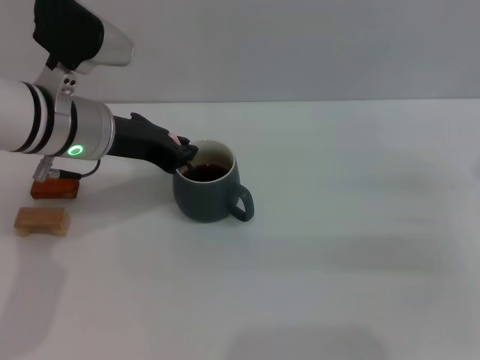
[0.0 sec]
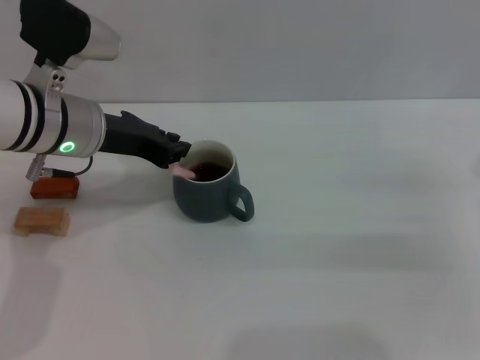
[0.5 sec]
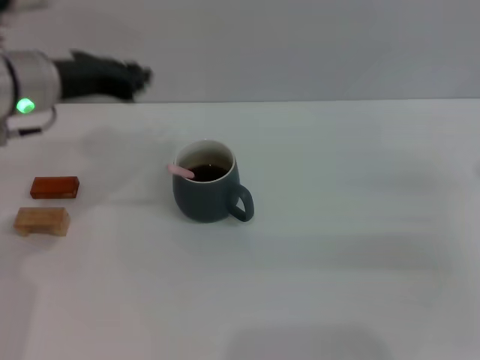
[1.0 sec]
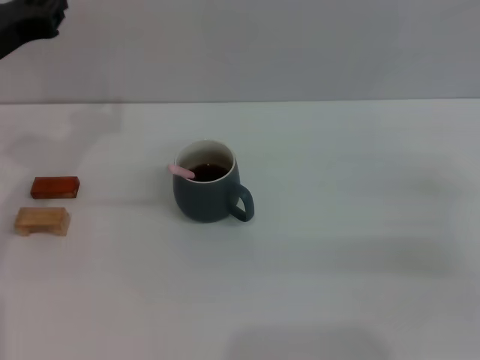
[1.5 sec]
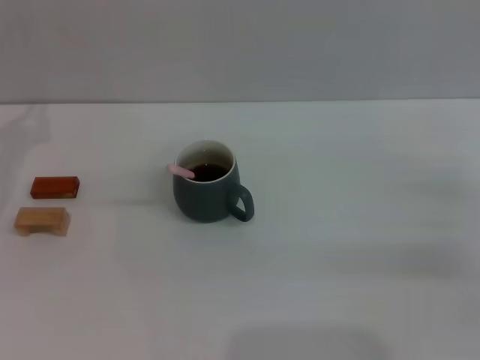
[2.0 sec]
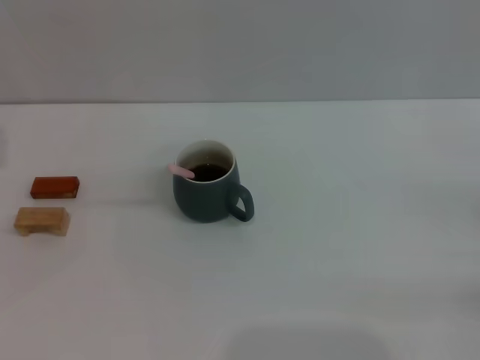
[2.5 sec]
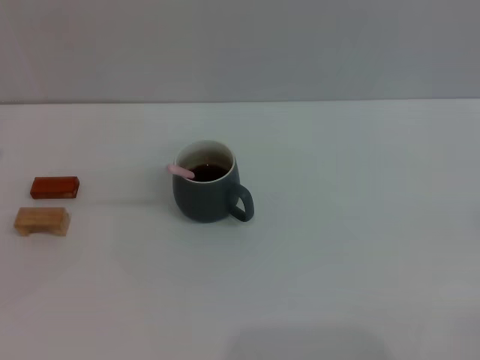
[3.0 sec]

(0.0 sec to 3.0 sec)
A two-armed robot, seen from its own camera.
Task of the whole recording: Move the grey cup to the center, lift the pink spoon, stir it three times in the cup, and put the spoon into the cup.
0.0 sec - 1.5 sec: The left gripper moves to the left, about 10 cm.
1.5 sec - 3.0 sec: The left gripper shifts approximately 15 cm to the left, downward and backward, and opens its fingers.

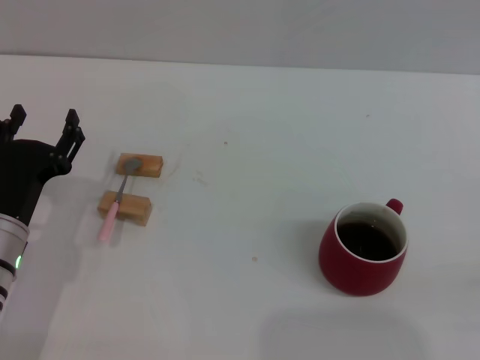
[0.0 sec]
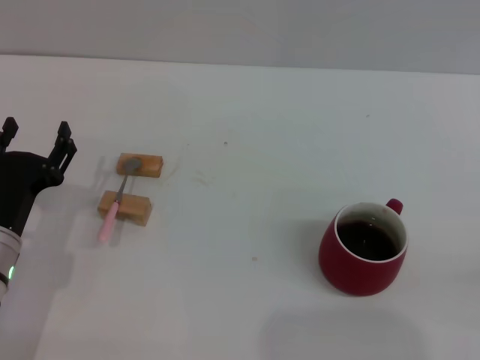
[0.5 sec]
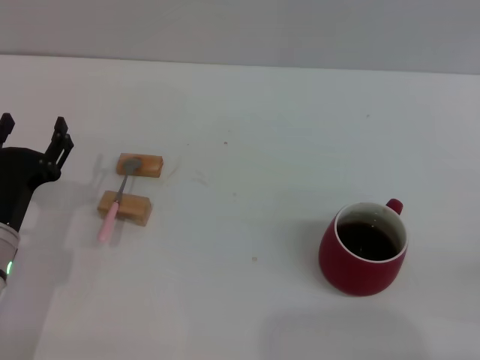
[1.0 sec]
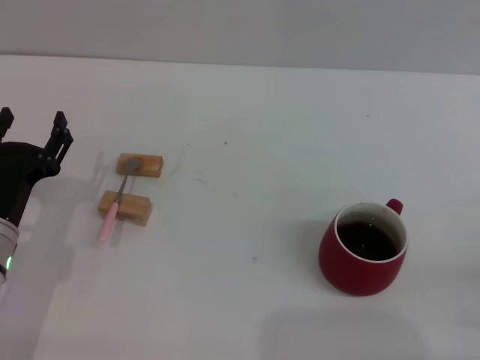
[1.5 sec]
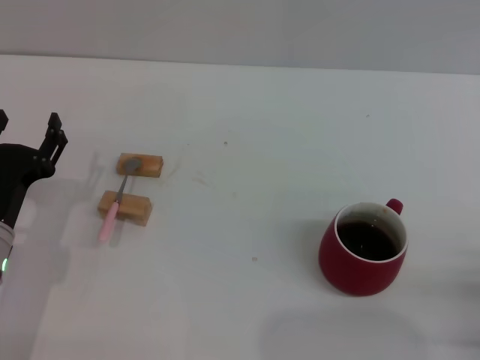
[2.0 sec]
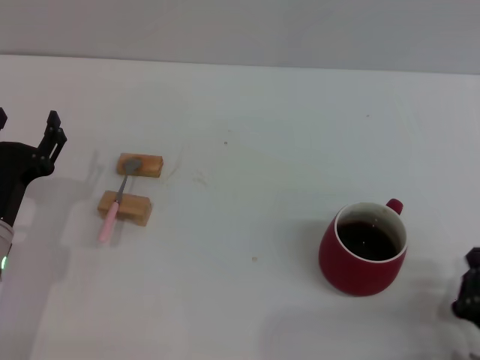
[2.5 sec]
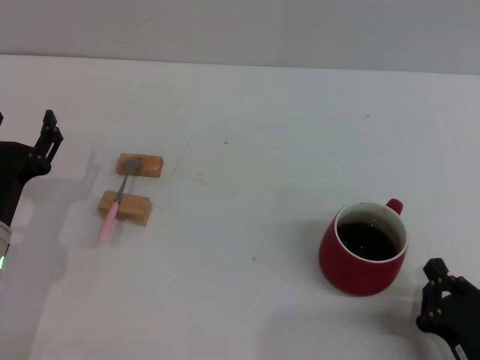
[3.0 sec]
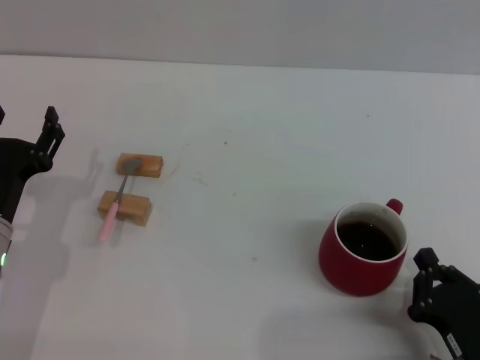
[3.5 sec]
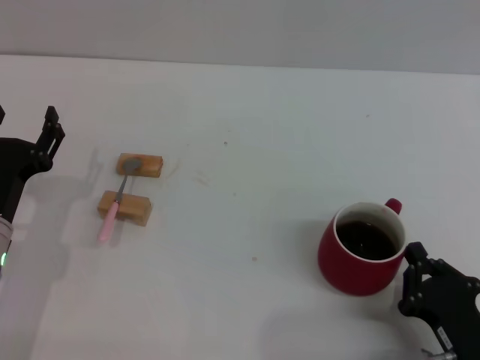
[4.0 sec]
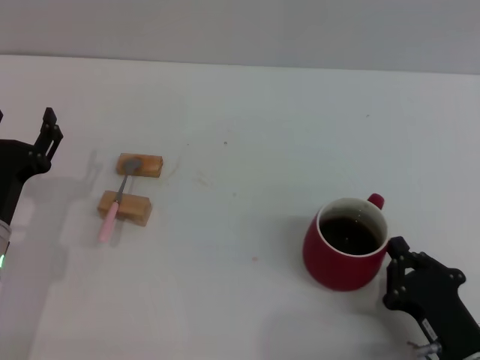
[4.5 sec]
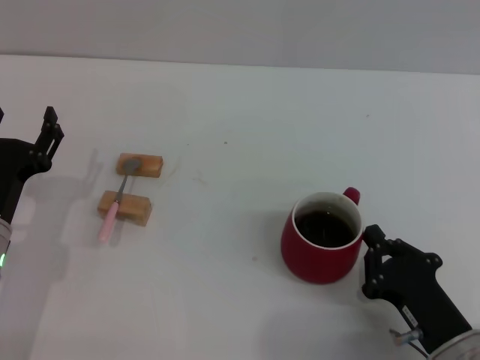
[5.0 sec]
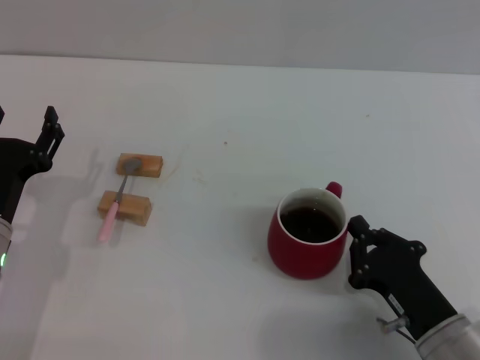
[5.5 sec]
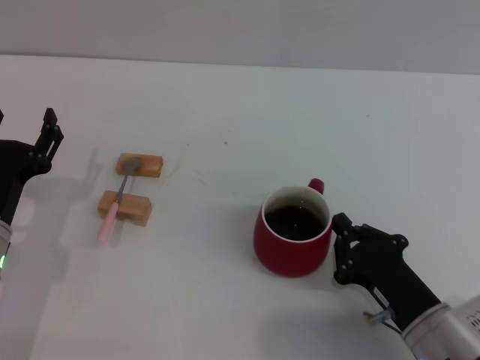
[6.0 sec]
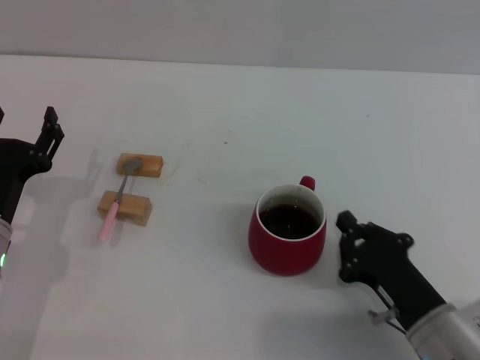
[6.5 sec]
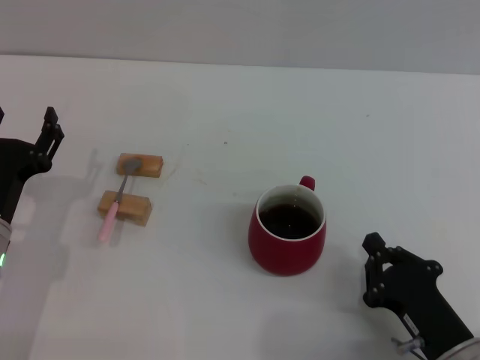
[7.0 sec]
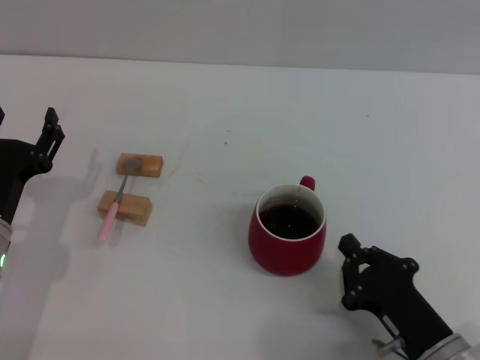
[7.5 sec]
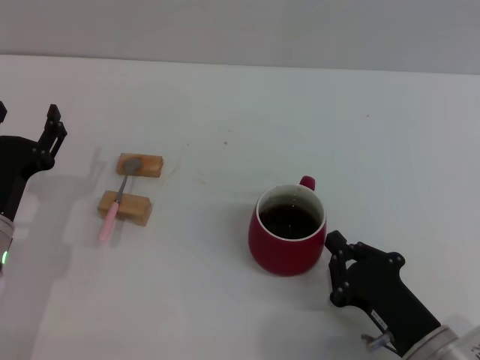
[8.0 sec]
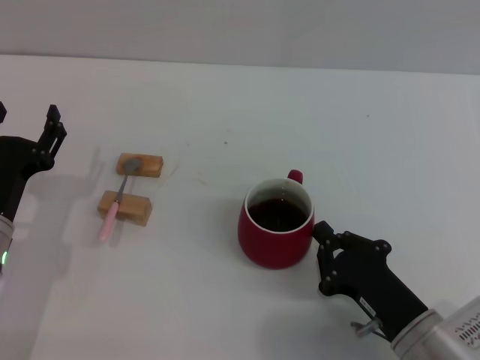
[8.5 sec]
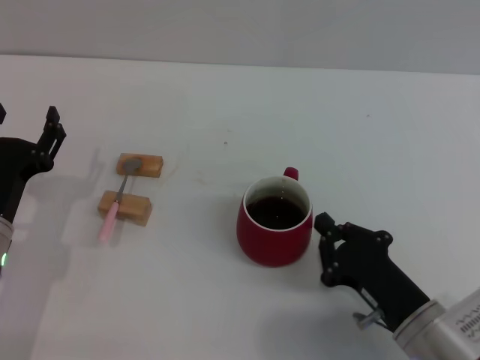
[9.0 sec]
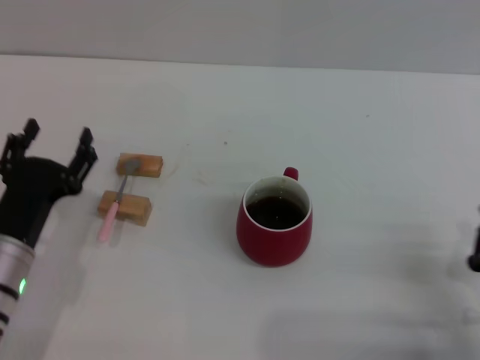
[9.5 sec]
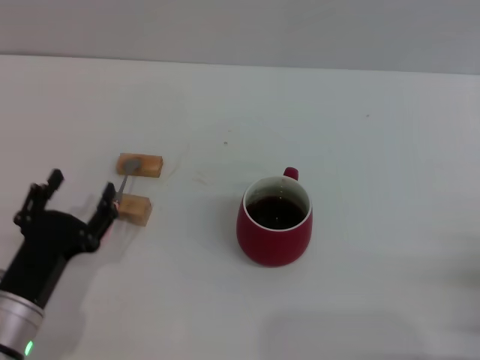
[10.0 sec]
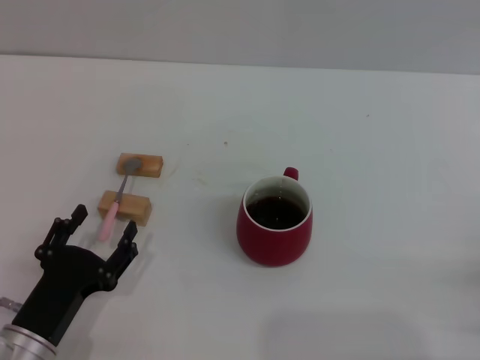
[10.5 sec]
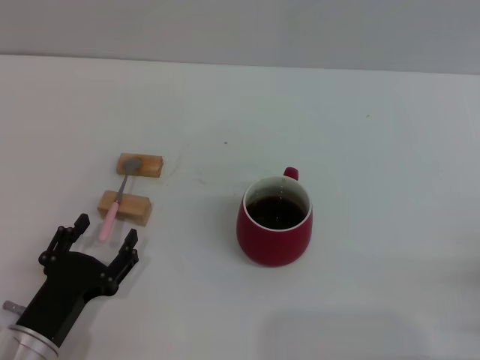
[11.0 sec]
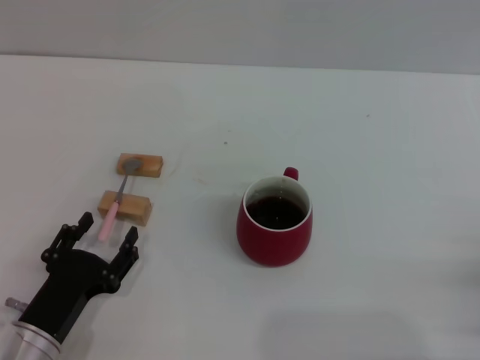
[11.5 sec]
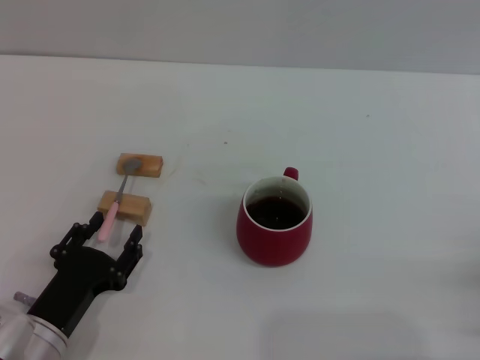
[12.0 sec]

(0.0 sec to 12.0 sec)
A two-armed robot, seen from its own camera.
Task of the whole recording: Move the red cup to the center, lift the pink spoon, stir it three times in the cup, and put the spoon into the cup.
Step, 0.0 sec - 9.5 sec: Move the cup with coffee to the center of view with the right gripper.
2.0 sec - 4.0 sec: The right gripper travels to the left by some 5 cm.
4.0 sec - 6.0 sec: The right gripper travels forward by some 5 cm.
6.0 sec - 8.0 sec: The grippers move only a little.
8.0 sec - 10.0 sec: The left gripper is displaced backward by some 5 cm, while the right gripper heads to the right, covering approximately 10 cm.
10.0 sec - 12.0 sec: The grippers make only small movements.

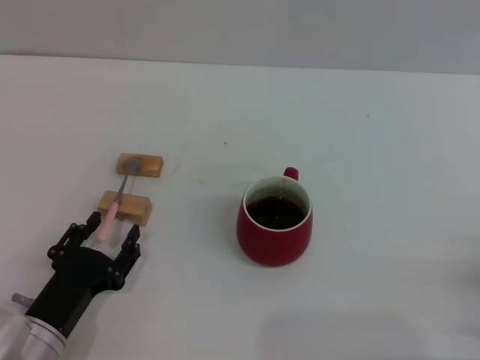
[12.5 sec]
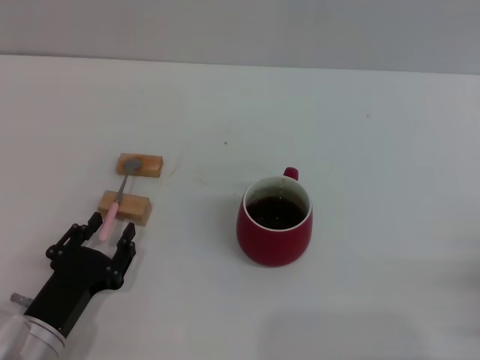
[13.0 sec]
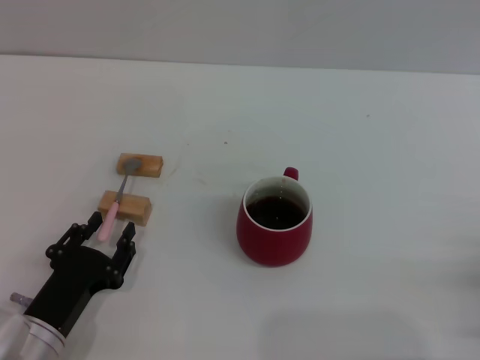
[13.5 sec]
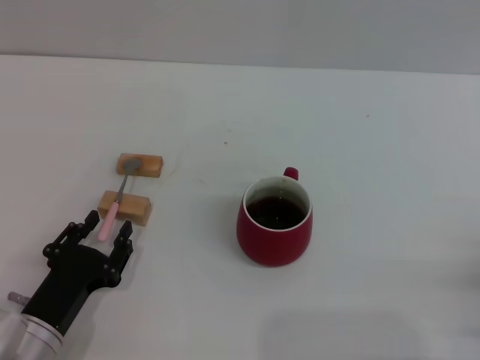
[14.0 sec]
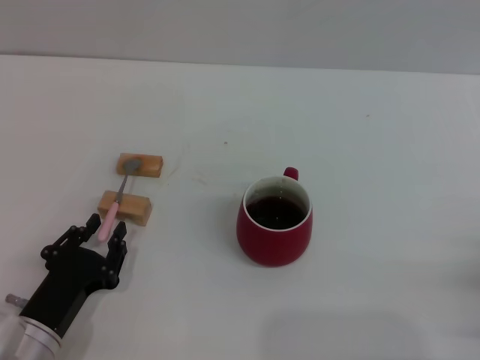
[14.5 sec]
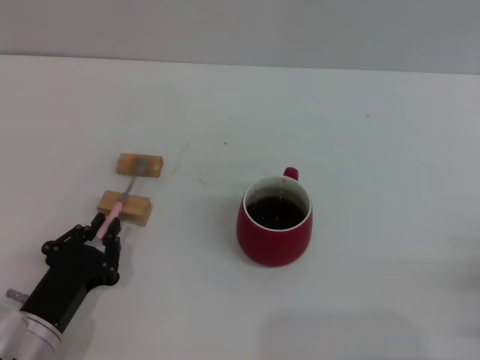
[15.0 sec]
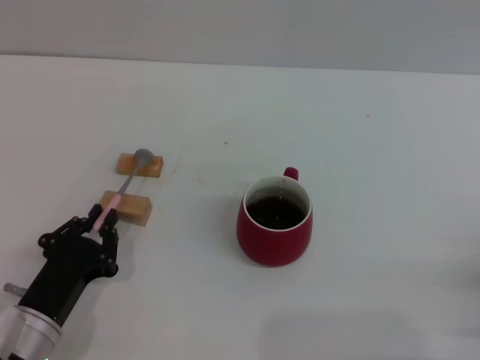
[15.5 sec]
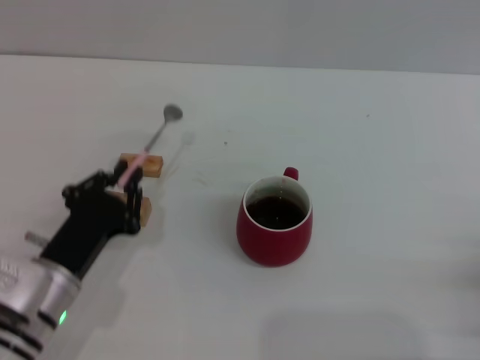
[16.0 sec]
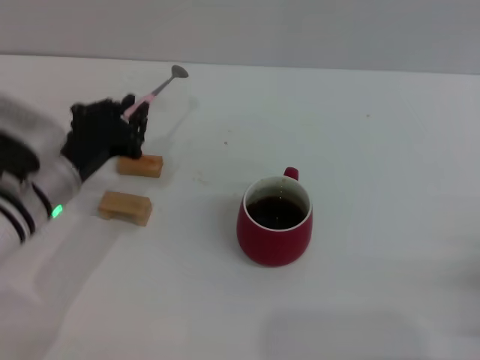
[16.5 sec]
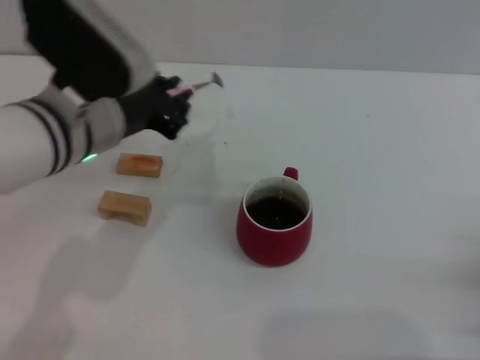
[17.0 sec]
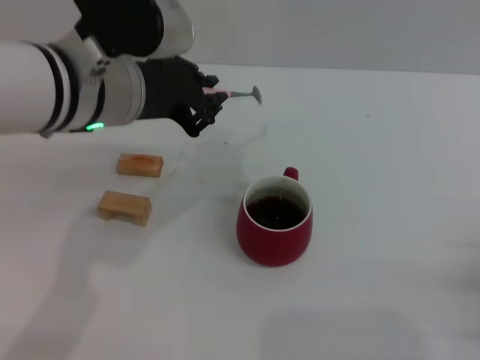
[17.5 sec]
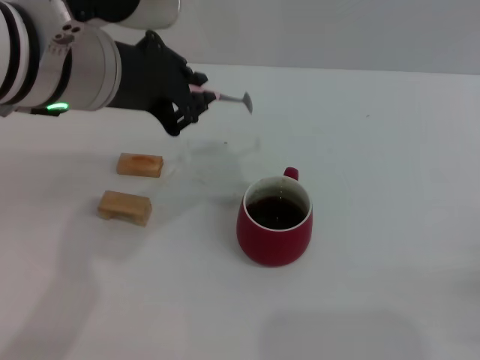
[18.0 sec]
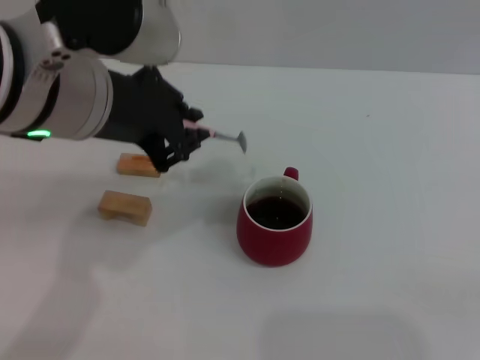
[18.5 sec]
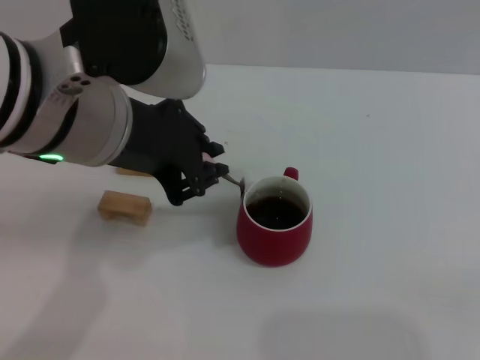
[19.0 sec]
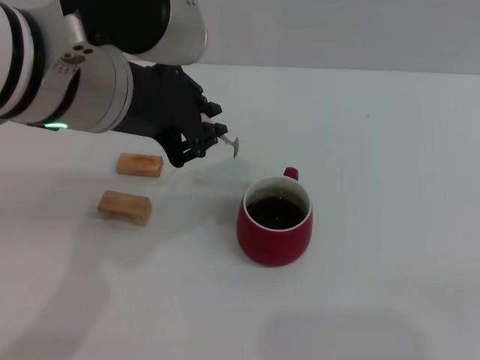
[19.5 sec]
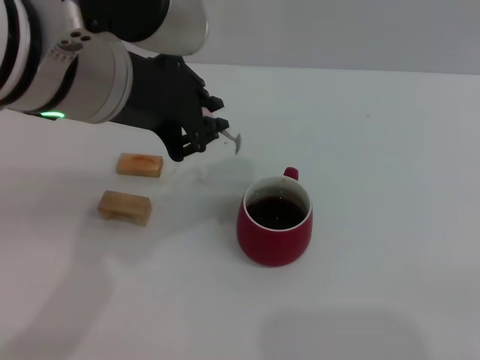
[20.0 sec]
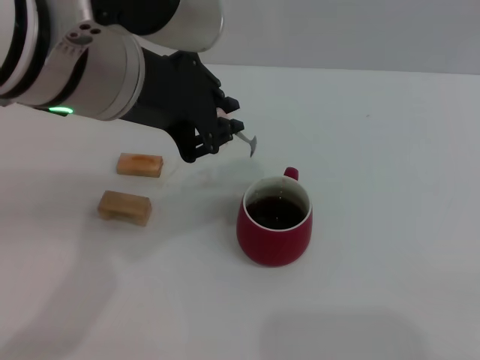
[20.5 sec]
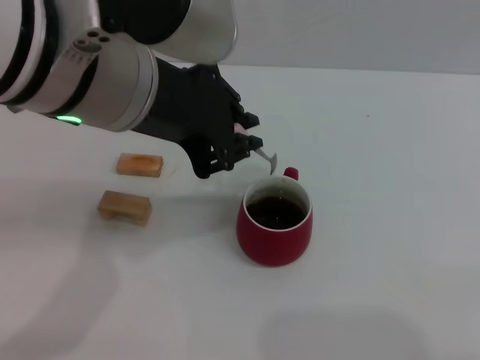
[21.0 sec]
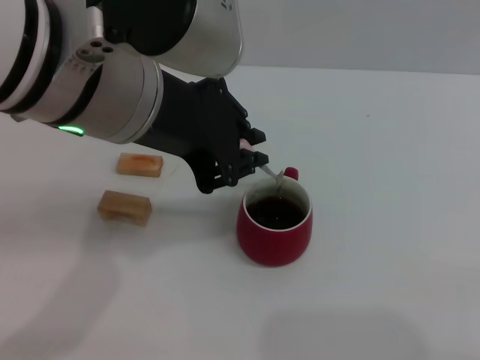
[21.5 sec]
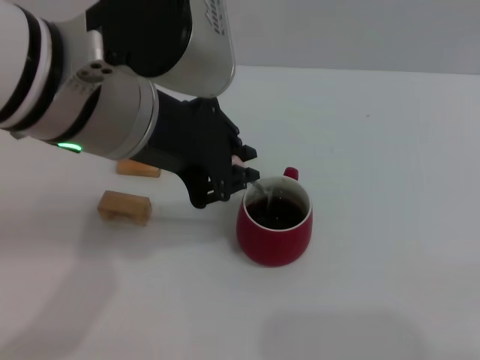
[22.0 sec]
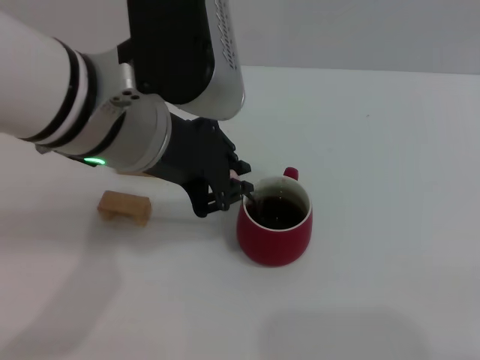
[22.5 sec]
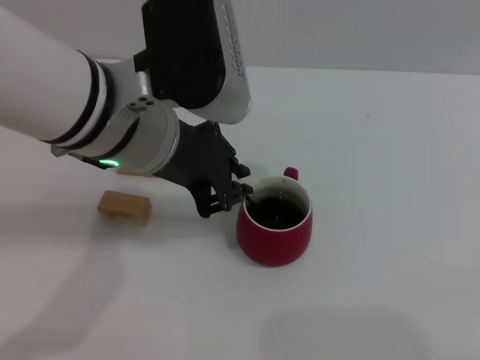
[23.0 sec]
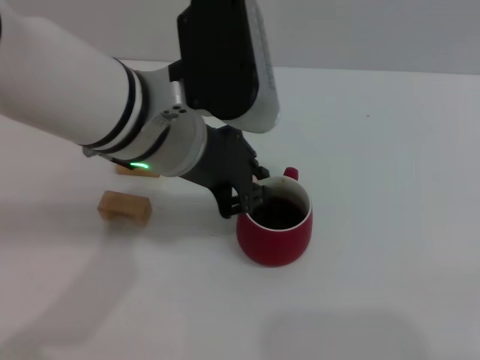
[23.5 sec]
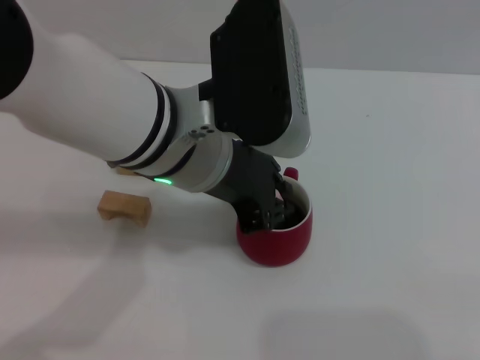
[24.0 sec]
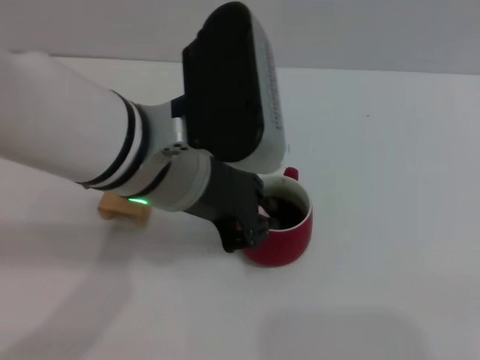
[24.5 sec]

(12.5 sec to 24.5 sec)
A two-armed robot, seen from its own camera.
Task of the whole recording: Move the red cup to the center, lift the pink spoon, stir it three times in the cup, and put the spoon into the cup.
Step, 12.5 sec - 16.5 sec: Pick up the spoon with the left gripper.
12.5 sec - 14.5 sec: The two grippers keep their place.
14.5 sec - 16.5 sec: The left gripper shifts some 15 cm forward and upward.
16.5 sec - 18.5 sec: The left gripper shifts roughly 20 cm upward.
18.5 sec - 22.5 sec: There are only small adjustments of the grippers.
